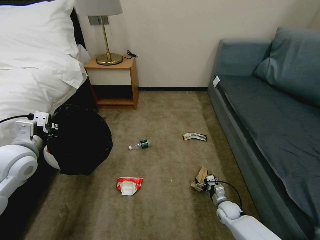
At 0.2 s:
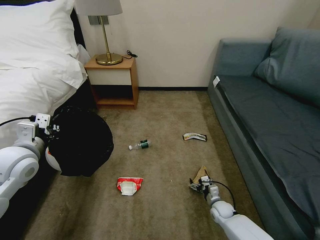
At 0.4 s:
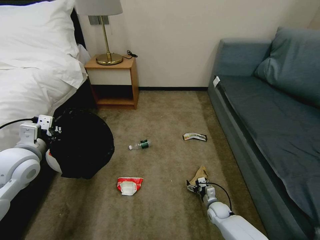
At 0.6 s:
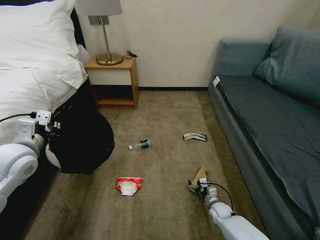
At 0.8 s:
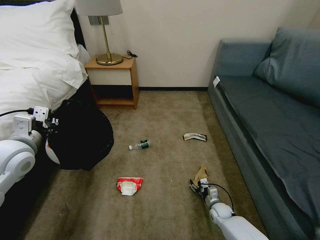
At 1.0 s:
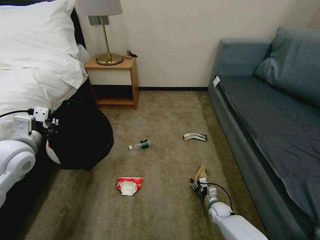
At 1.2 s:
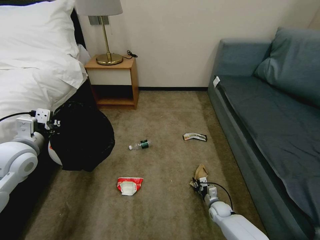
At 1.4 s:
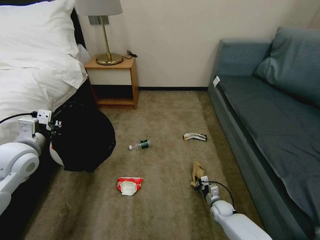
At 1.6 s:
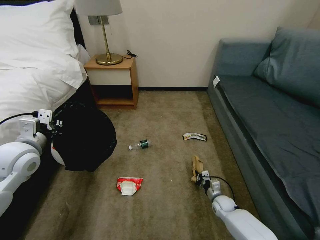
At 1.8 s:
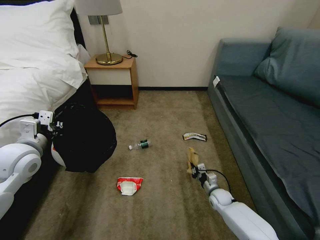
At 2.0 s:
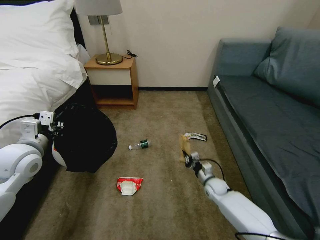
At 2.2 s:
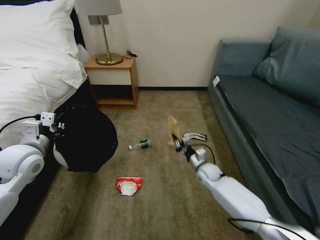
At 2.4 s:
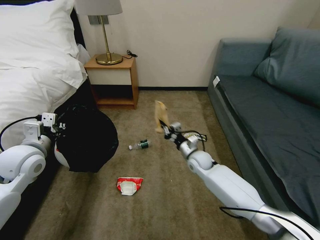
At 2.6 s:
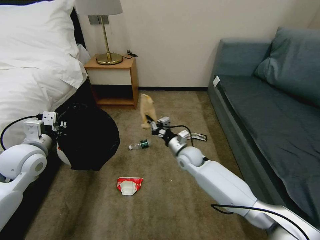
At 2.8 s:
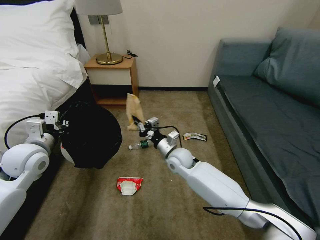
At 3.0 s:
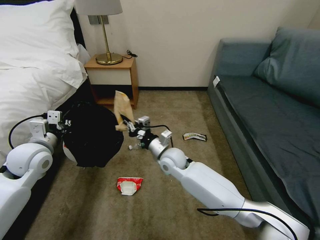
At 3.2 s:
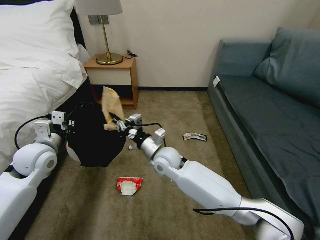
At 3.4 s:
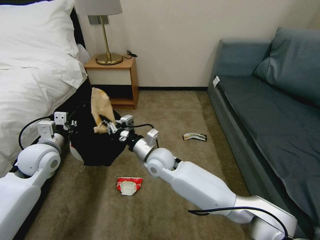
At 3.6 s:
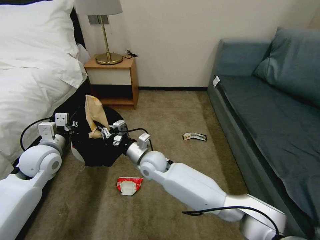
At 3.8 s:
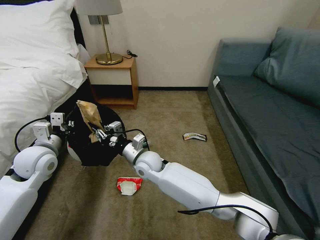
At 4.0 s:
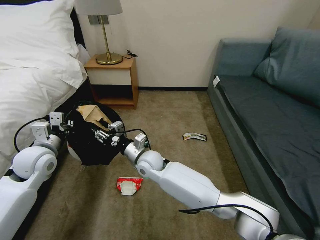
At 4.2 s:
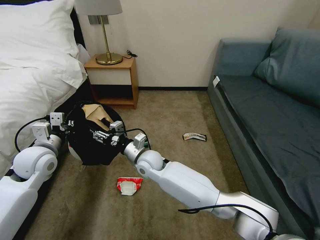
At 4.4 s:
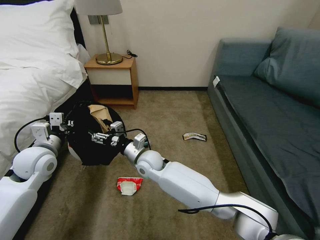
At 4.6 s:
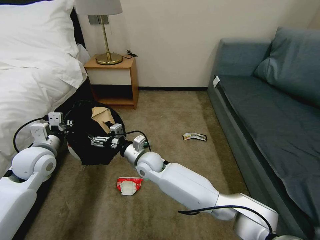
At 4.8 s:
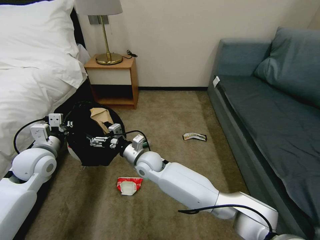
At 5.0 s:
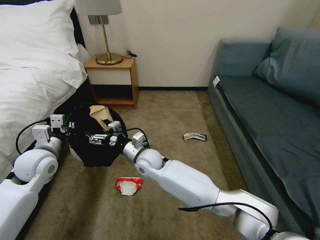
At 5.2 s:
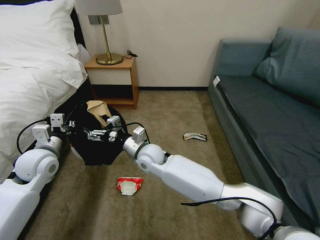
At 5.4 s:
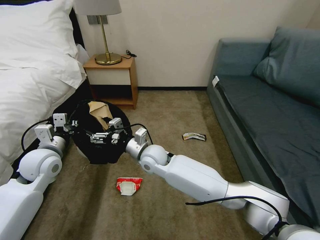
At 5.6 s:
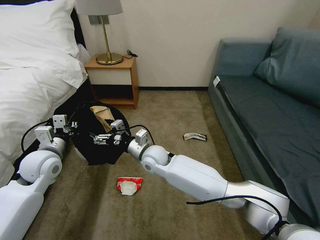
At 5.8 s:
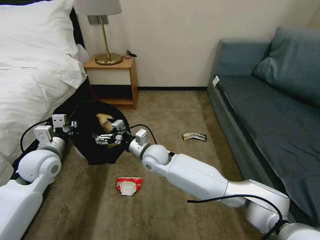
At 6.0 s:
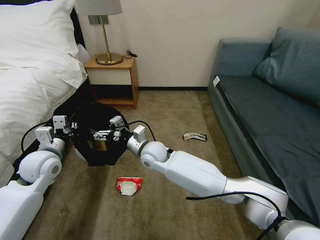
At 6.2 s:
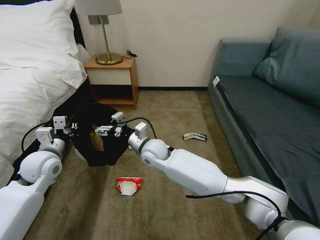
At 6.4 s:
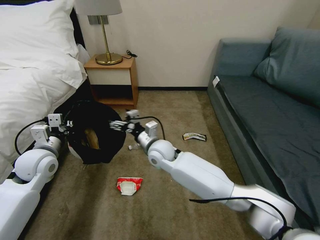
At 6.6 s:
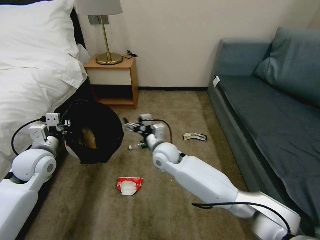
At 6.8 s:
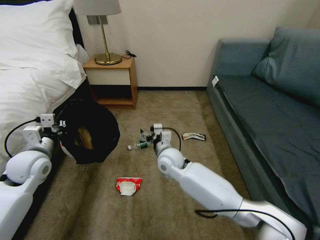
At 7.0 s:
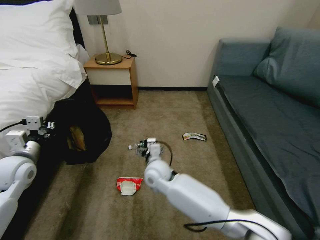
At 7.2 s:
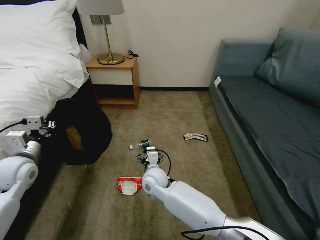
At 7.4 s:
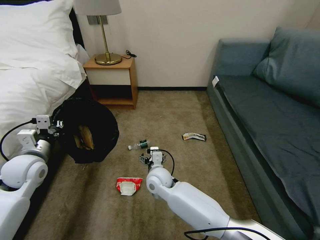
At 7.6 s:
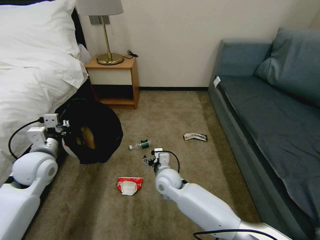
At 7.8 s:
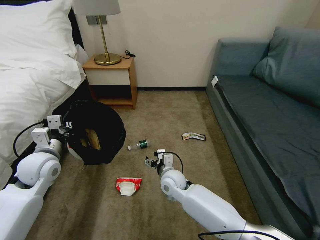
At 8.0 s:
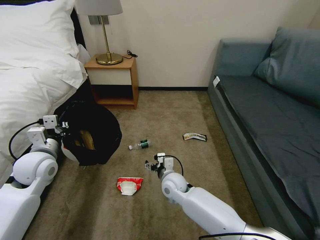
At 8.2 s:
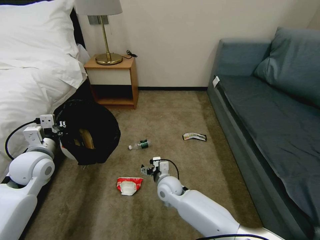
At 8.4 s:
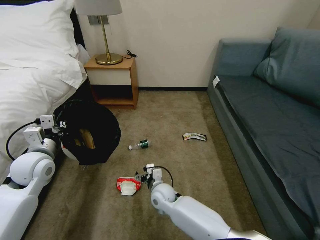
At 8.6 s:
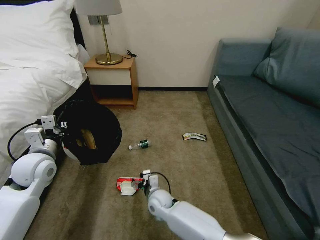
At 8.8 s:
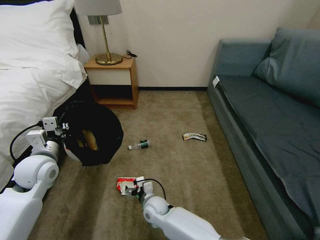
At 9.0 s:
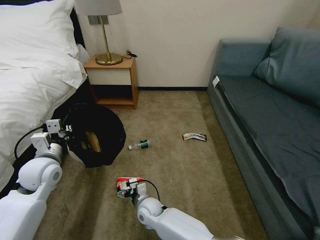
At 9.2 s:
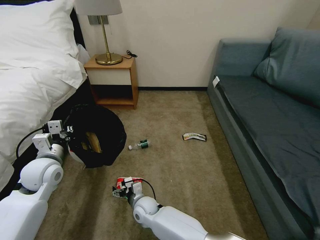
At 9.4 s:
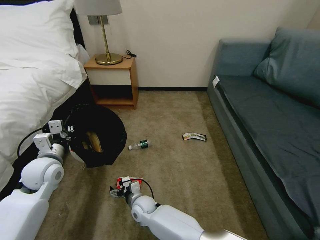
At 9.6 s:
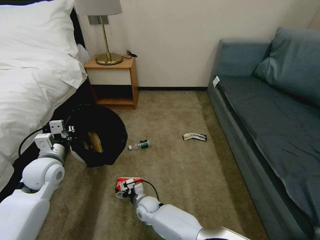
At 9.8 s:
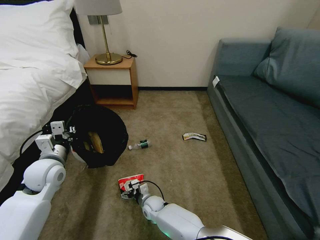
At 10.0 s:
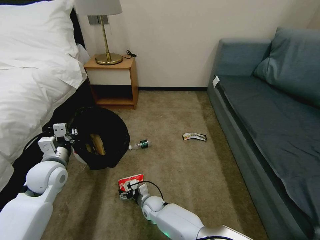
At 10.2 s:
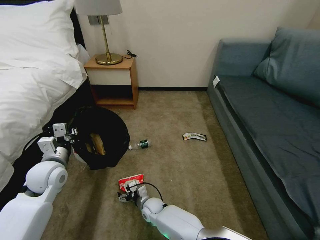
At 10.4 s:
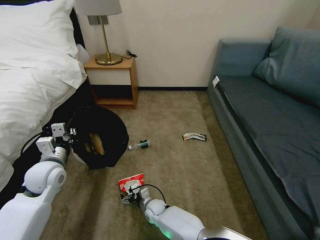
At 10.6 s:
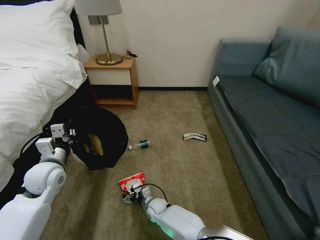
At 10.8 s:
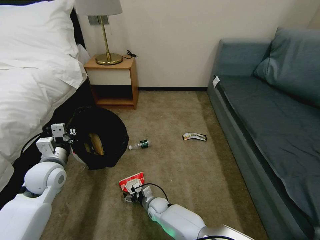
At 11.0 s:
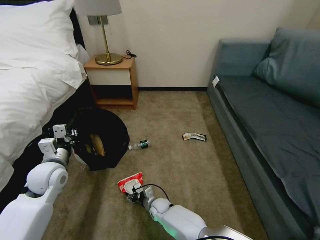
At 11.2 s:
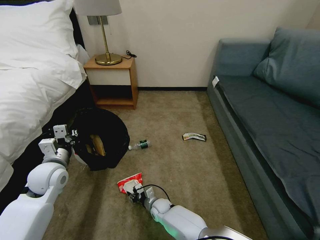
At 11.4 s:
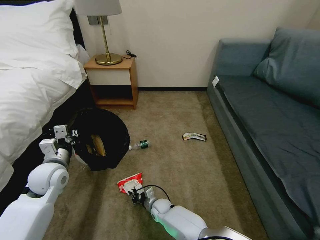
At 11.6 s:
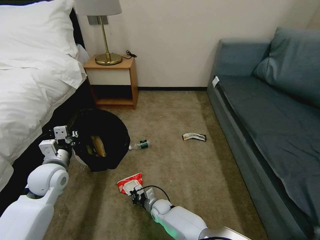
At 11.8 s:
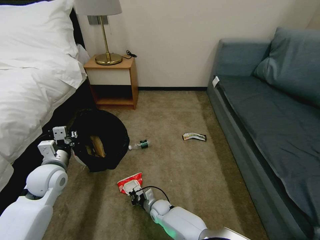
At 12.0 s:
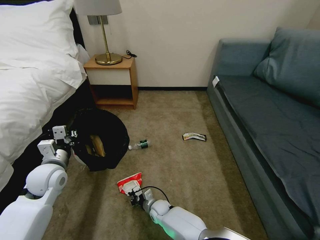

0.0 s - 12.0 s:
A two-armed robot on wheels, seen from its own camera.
Task of the whole recording: Pick up the trash bin, then pick up the garbage on the floor and place it into the trash bin.
0.0 s - 1.6 s: The right gripper closes up.
1.6 s - 3.0 s: The right gripper goes roughly 35 cm upward and to the left.
3.0 s - 4.4 s: The right gripper moves to the left, approximately 10 cm, and opens.
4.4 s - 6.0 s: There are only small adjustments of the grippers.
6.0 s - 7.6 s: The right gripper goes some 10 cm downward, backward and to the right.
7.6 s - 9.0 s: The right gripper shifts some 15 cm downward, to the left and backward.
9.0 s - 10.4 s: The right gripper moves downward, about 10 cm.
10.4 s - 12.0 s: The right gripper closes.

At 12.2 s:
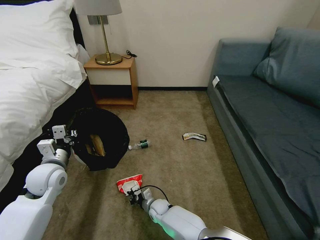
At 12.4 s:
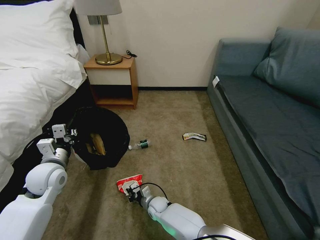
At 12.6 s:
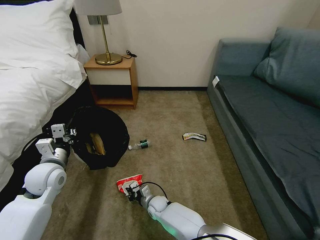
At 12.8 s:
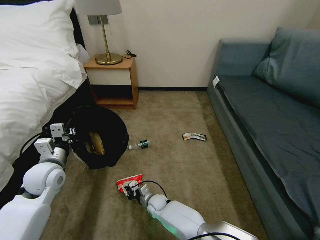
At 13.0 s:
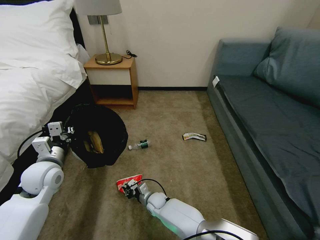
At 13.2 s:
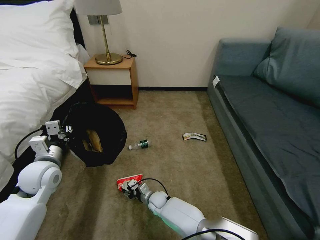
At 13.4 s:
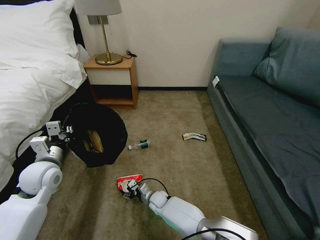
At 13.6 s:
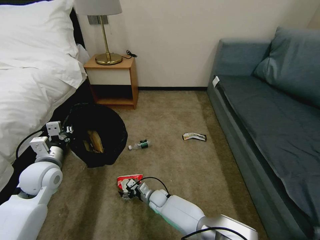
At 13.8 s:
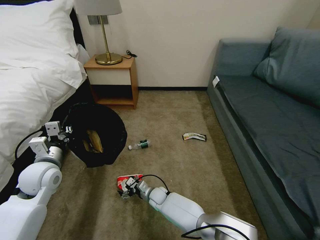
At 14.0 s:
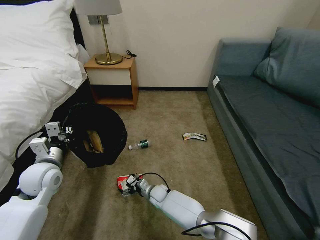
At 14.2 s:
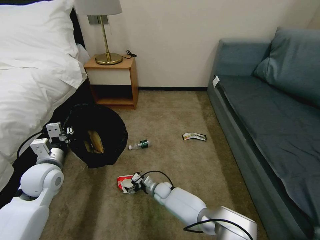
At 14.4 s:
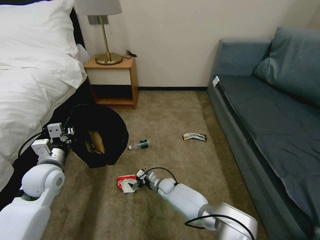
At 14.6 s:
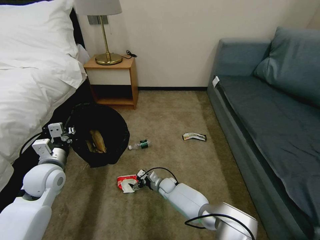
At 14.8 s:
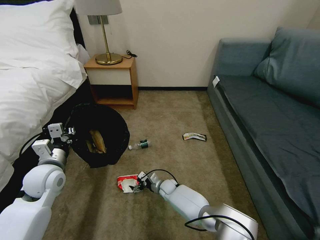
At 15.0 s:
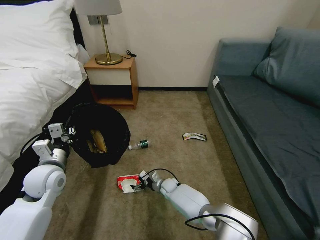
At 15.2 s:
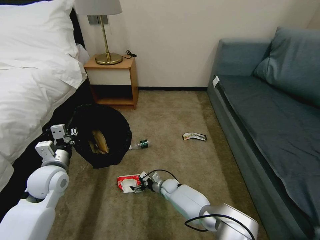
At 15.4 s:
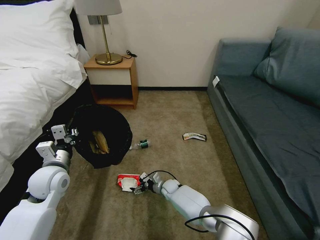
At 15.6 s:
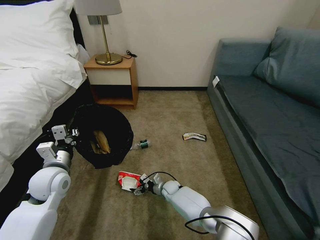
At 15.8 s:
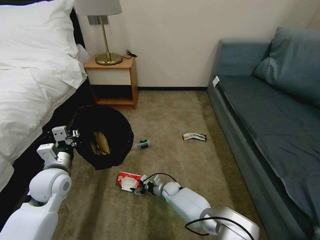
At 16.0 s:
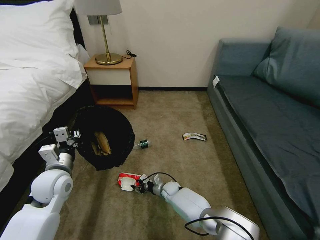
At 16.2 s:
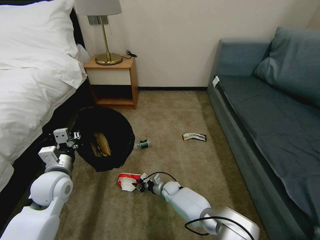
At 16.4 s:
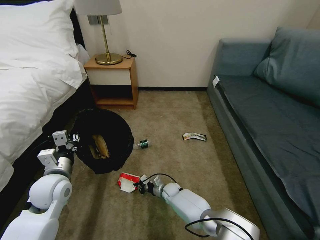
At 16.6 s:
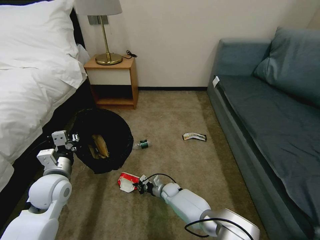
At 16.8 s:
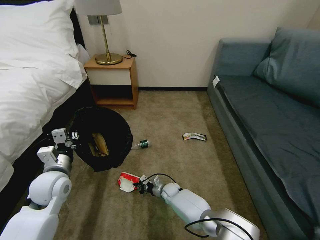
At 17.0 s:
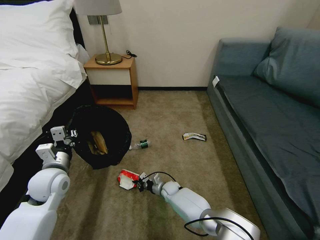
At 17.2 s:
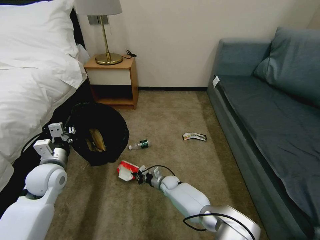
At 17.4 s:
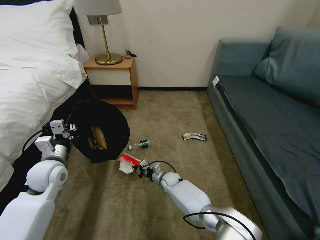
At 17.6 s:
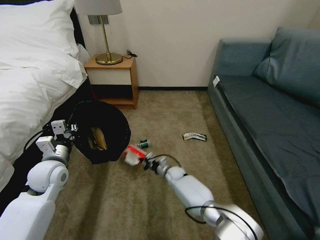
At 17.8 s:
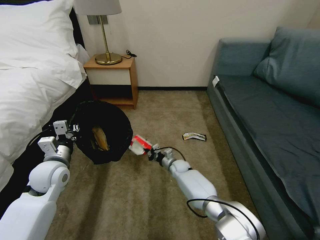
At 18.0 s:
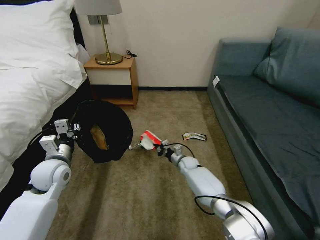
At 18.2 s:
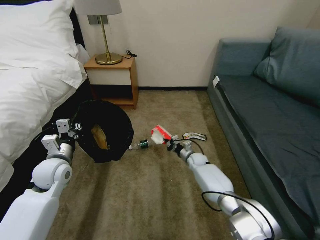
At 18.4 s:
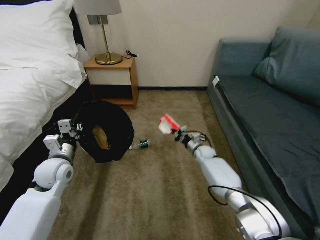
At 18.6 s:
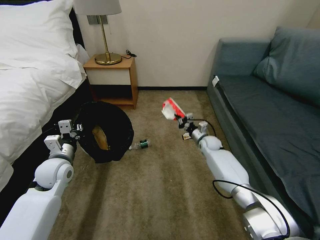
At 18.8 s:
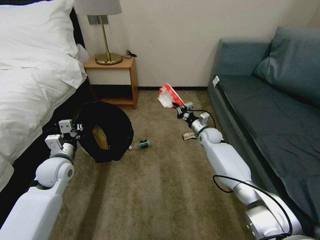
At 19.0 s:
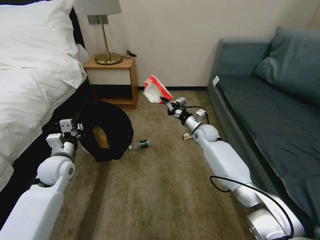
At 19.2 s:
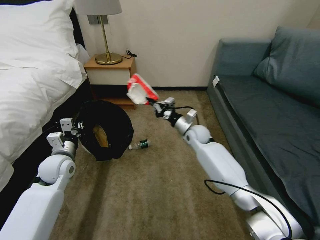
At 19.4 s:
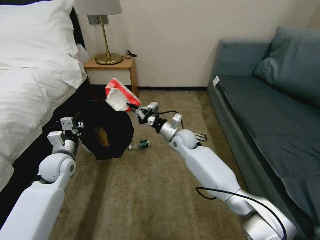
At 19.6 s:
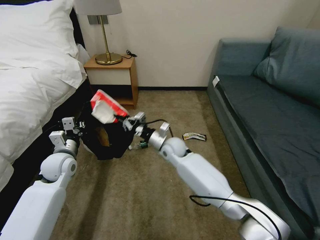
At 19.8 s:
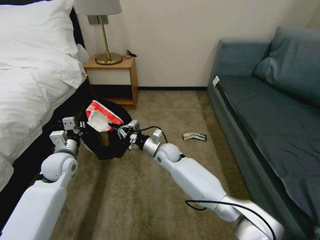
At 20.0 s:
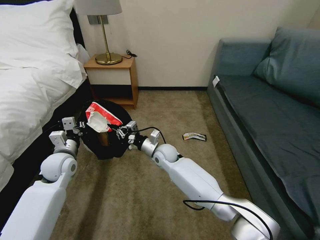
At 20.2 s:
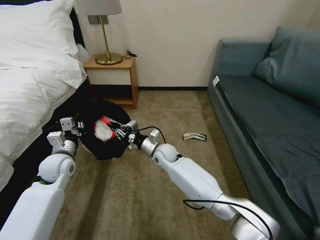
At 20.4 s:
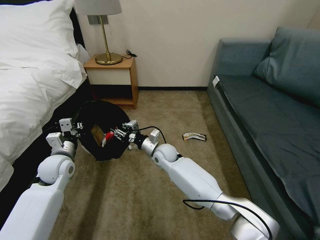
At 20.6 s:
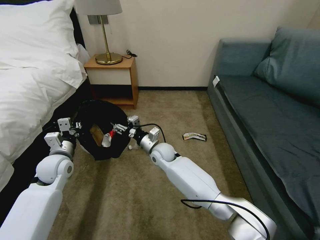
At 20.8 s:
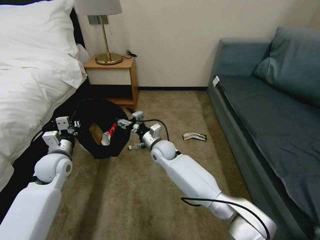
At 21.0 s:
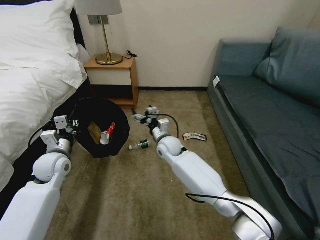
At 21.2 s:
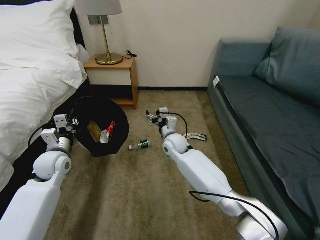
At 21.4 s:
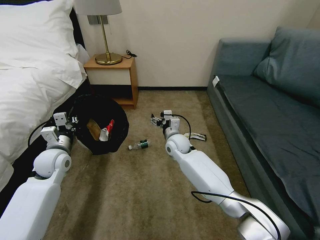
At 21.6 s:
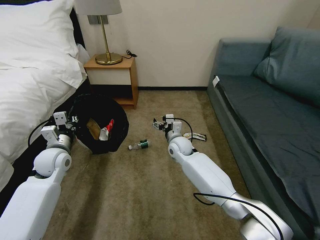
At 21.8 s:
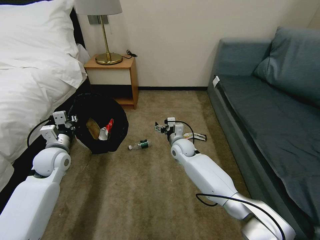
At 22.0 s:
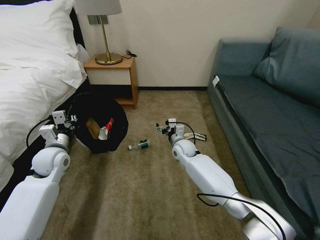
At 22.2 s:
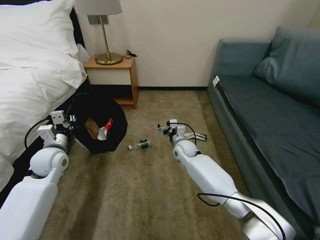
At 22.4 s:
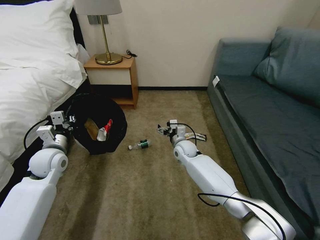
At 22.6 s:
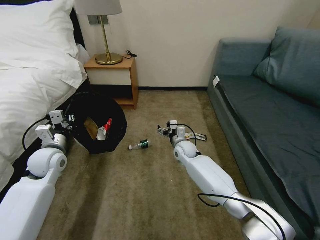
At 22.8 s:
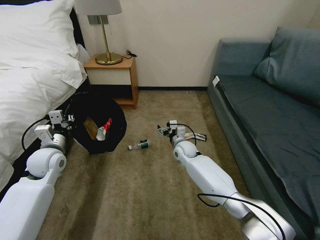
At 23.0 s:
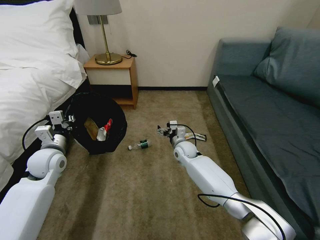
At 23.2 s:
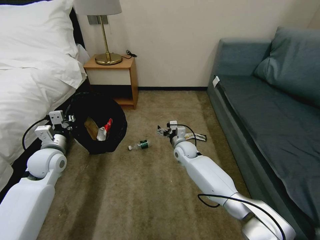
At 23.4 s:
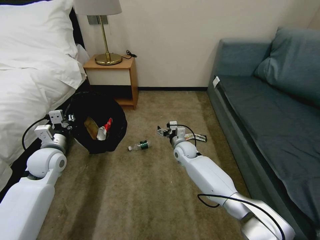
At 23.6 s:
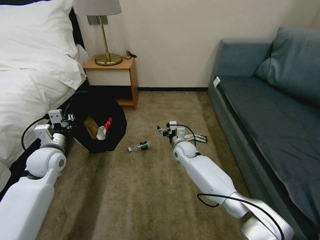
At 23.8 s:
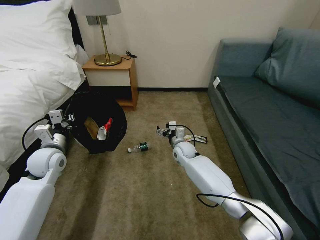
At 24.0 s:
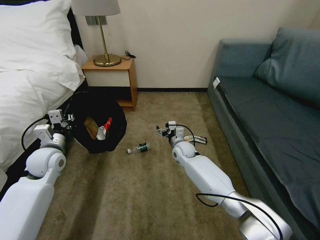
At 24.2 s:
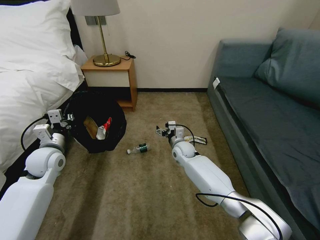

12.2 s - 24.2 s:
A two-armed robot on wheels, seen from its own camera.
Task of the whole recording: Pick up the trash bin, then pick up the garbage on the floor and place it into the trash bin.
12.2 s - 13.8 s: The right gripper changes place by some 5 cm, and opens up.
13.8 s - 15.2 s: The right gripper is displaced to the right by roughly 5 cm.
15.2 s - 16.6 s: The right gripper closes its fingers.
16.6 s - 18.2 s: The right gripper heads to the right, forward and upward, covering roughly 20 cm, while the left gripper is displaced forward by about 5 cm.
18.2 s - 19.8 s: The right gripper is displaced upward and to the left by approximately 20 cm.
19.8 s - 21.2 s: The right gripper opens its fingers.
21.2 s - 22.6 s: The right gripper travels downward and to the right by approximately 10 cm.
22.6 s - 24.2 s: The two grippers keep their place.
